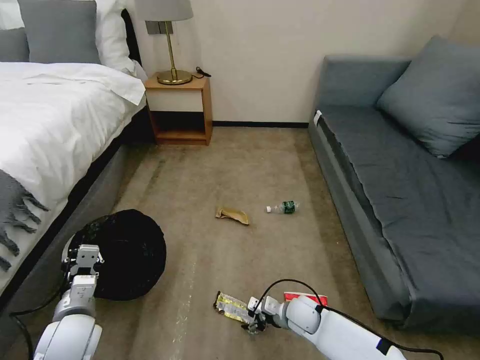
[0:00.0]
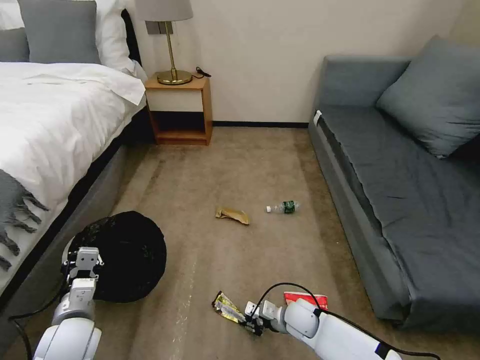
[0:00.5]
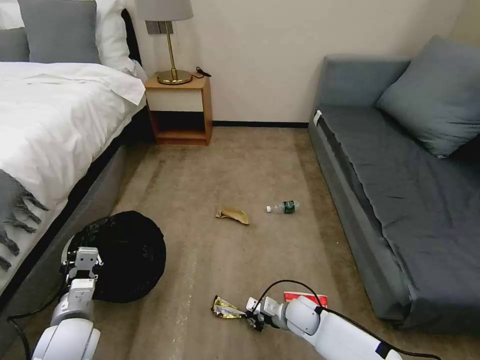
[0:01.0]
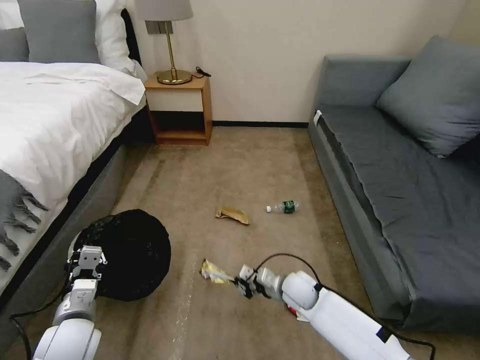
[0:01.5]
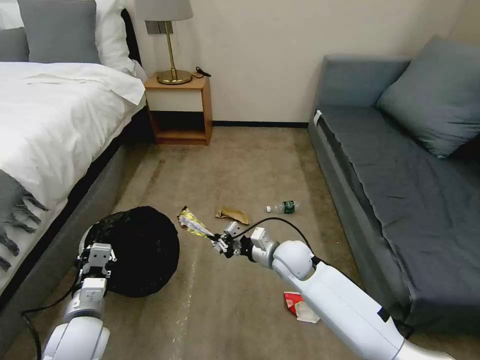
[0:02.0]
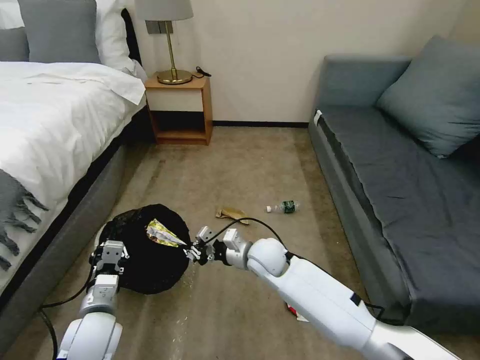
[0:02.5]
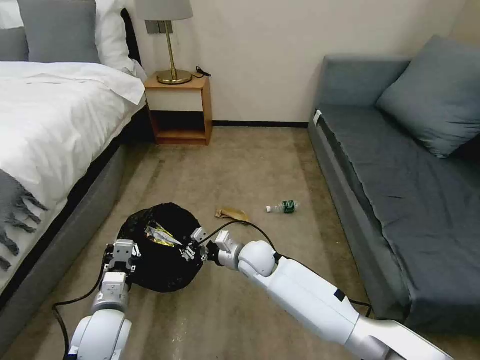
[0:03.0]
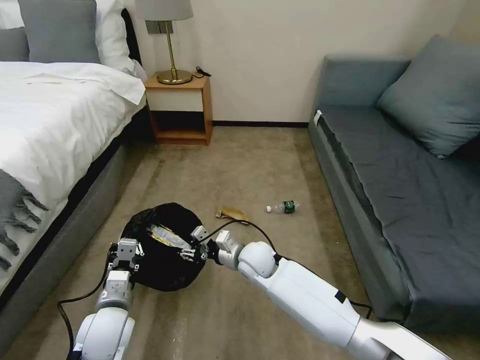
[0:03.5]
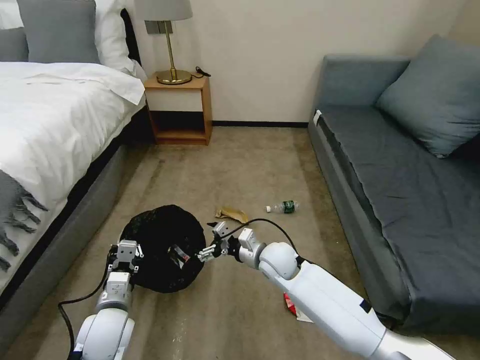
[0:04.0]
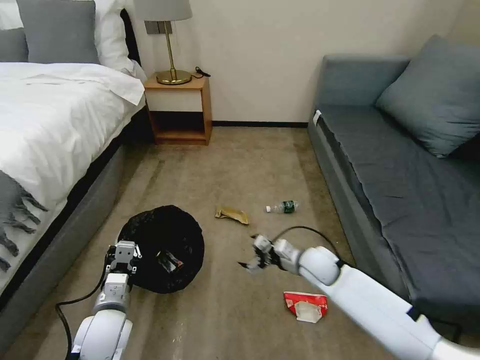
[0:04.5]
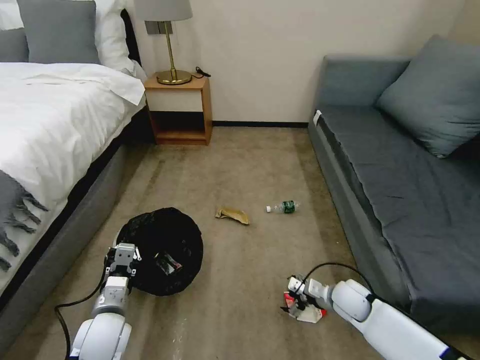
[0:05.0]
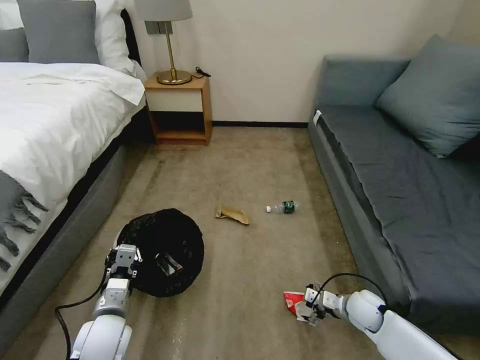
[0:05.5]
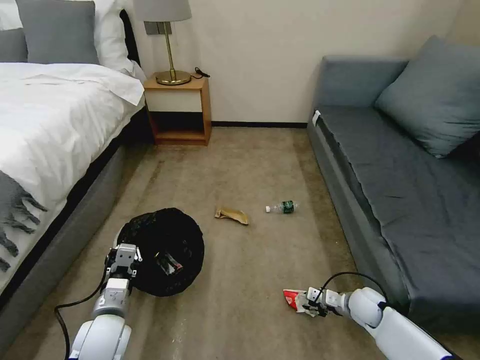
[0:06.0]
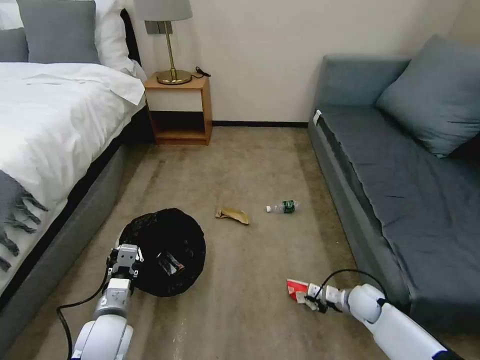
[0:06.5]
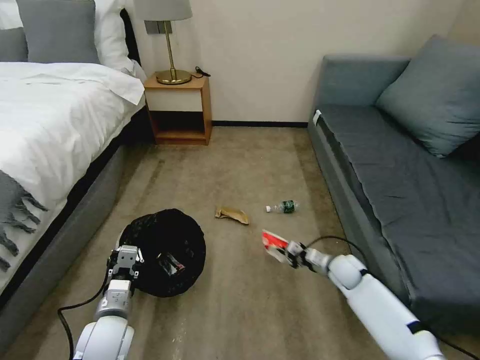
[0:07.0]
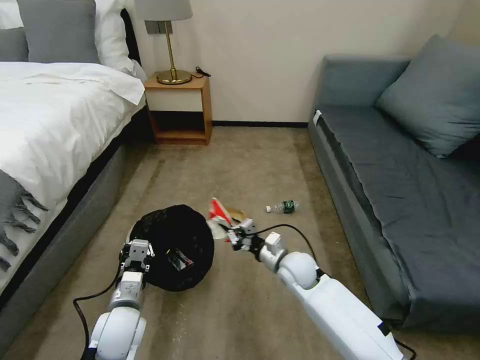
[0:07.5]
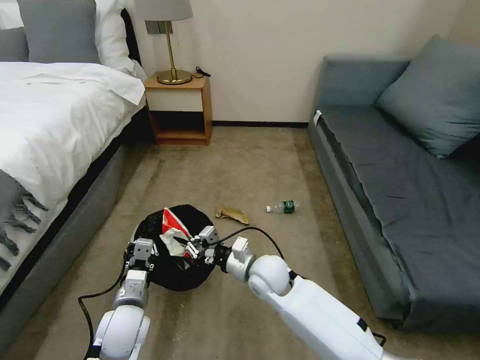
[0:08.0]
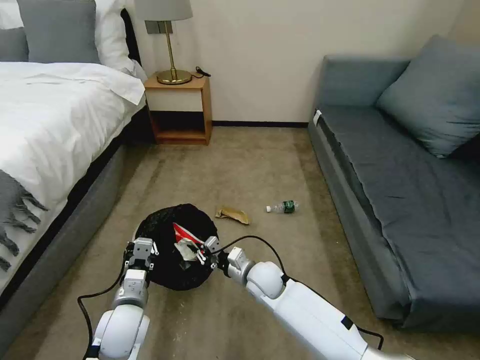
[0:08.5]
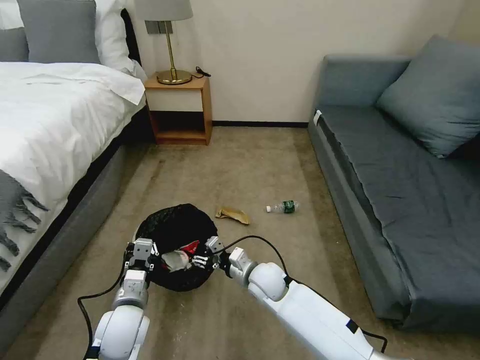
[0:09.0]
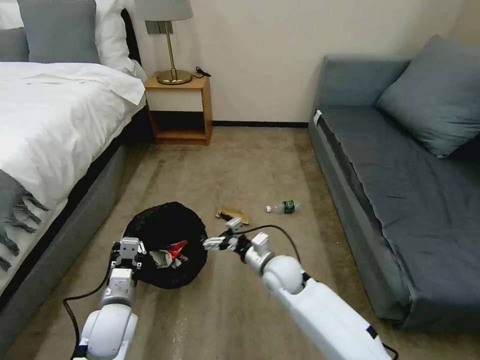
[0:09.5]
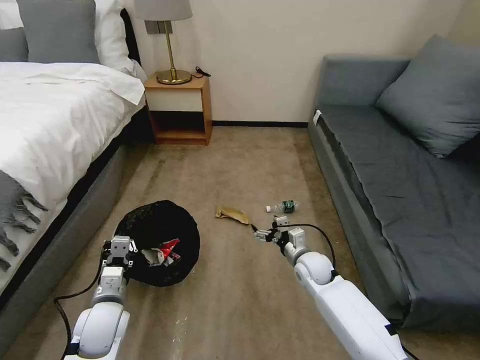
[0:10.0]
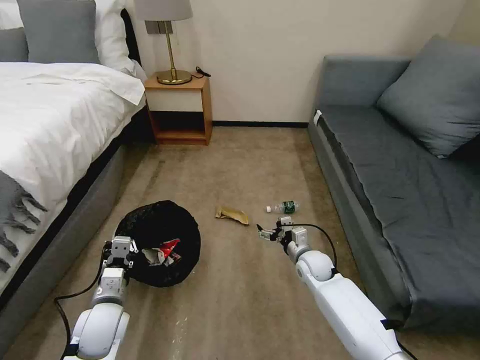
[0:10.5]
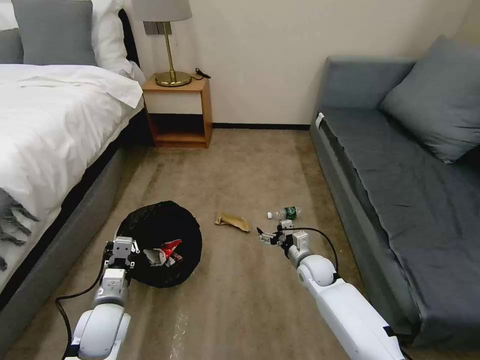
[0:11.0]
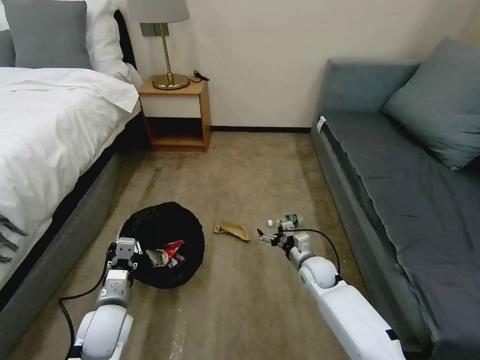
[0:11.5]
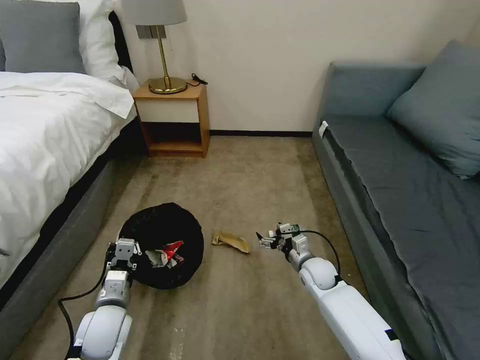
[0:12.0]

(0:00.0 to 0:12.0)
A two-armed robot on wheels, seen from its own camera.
Task of the whole recording: Pick up the trash bin, then pick up the garbage on the floor and place it into the trash bin.
0:00.0 - 0:02.0: The right gripper is displaced upward and forward by approximately 20 cm, and closes its fingers.
0:02.0 - 0:04.0: The right gripper opens.
0:04.0 - 0:06.0: The right gripper heads to the right and downward, covering about 30 cm, and closes its fingers.
0:06.0 - 0:08.0: The right gripper goes roughly 35 cm to the left and upward, and closes its fingers.
0:08.0 - 0:10.0: The right gripper heads to the right and downward, covering some 15 cm, and opens its fingers.

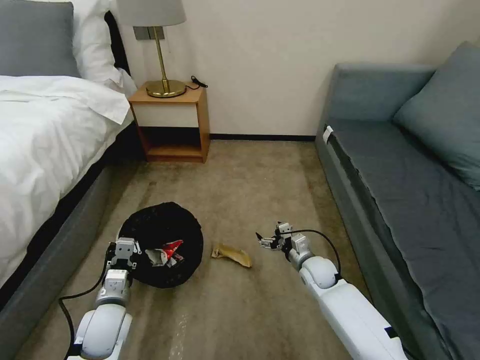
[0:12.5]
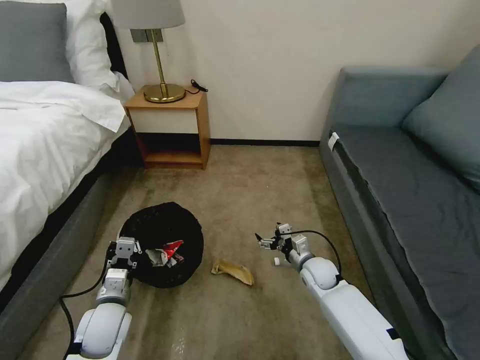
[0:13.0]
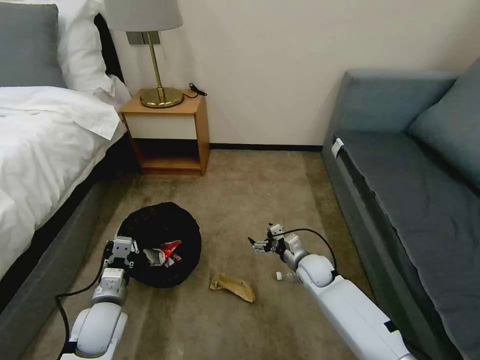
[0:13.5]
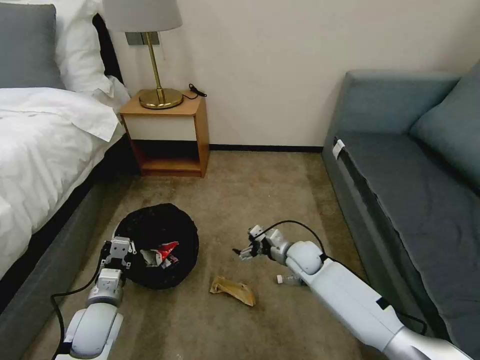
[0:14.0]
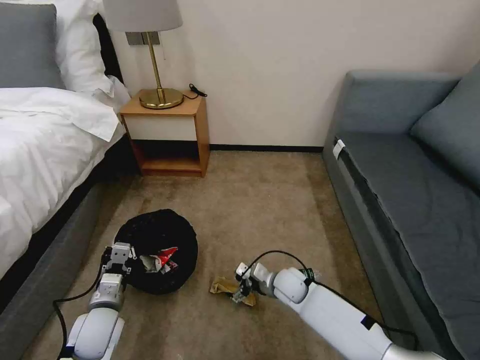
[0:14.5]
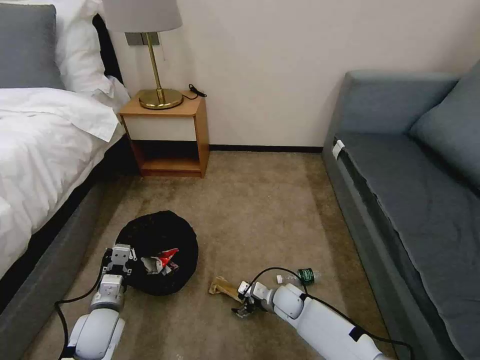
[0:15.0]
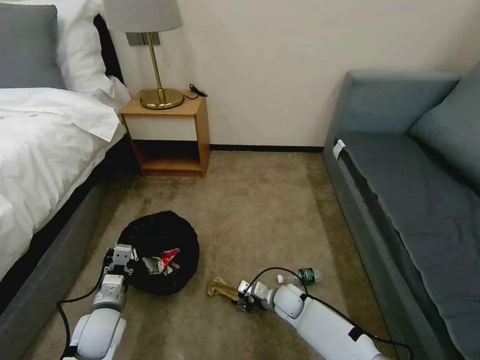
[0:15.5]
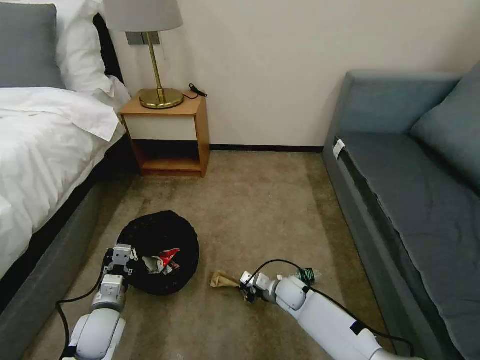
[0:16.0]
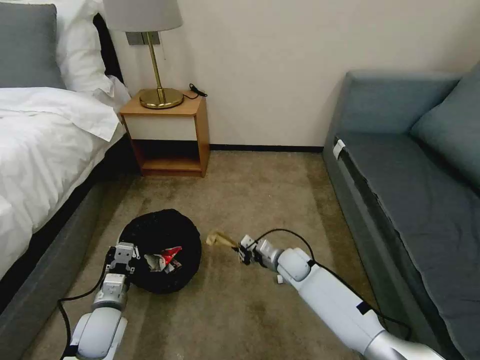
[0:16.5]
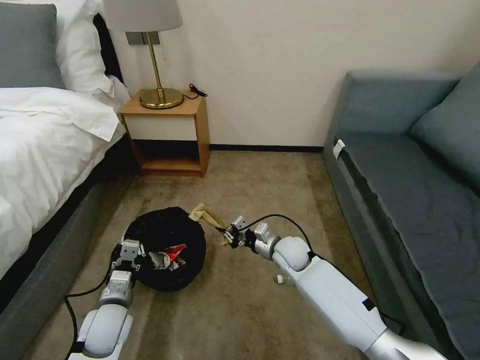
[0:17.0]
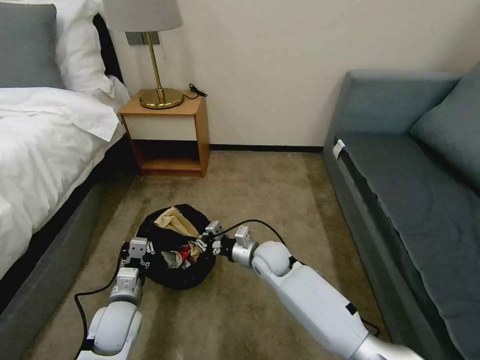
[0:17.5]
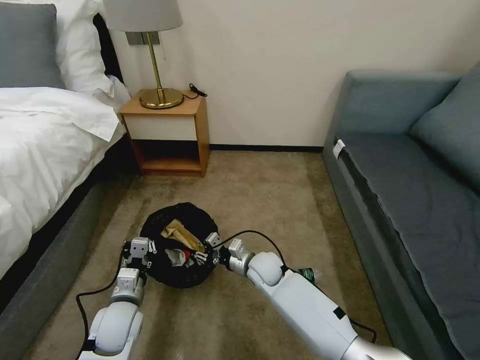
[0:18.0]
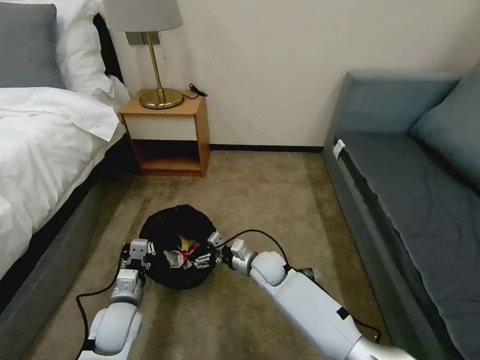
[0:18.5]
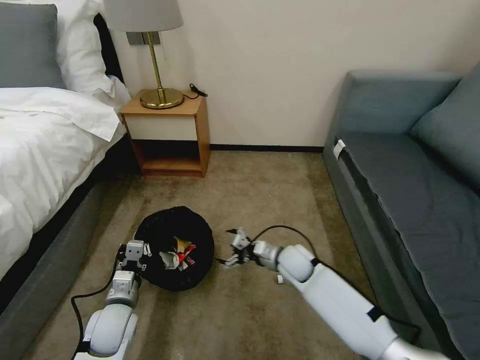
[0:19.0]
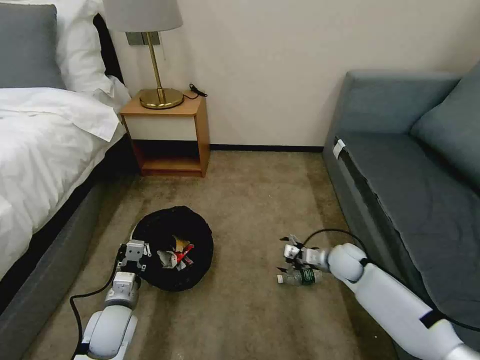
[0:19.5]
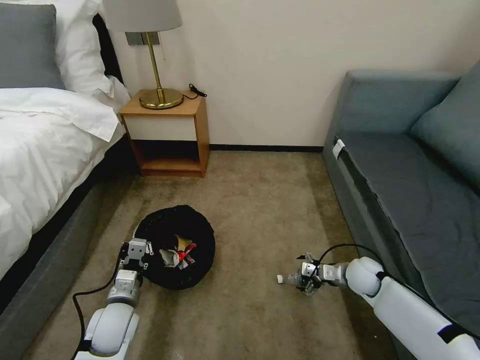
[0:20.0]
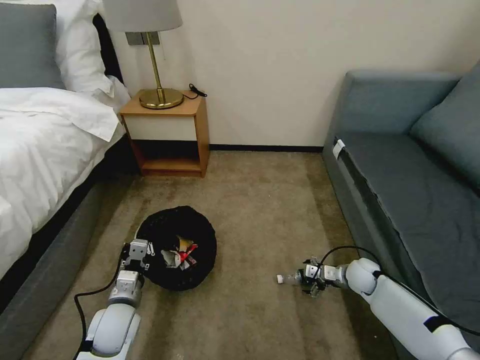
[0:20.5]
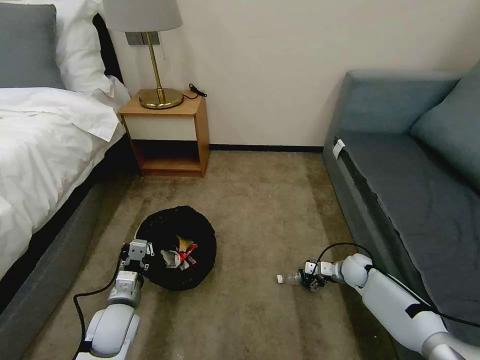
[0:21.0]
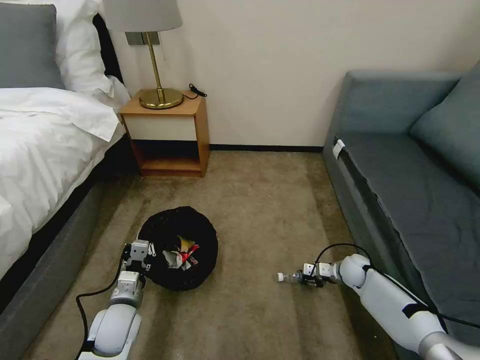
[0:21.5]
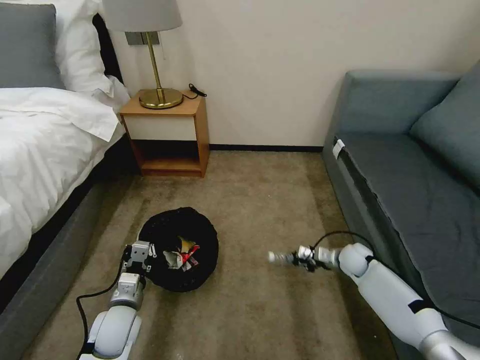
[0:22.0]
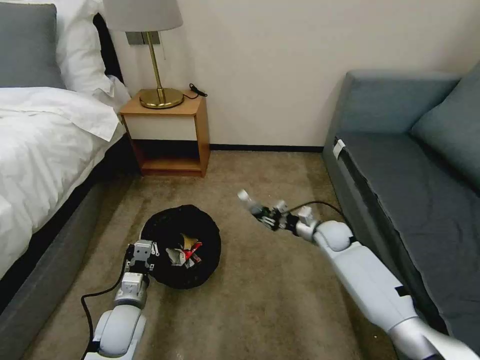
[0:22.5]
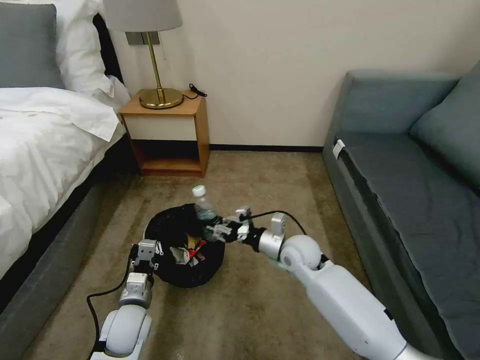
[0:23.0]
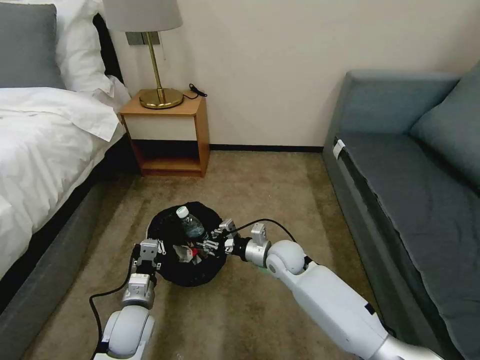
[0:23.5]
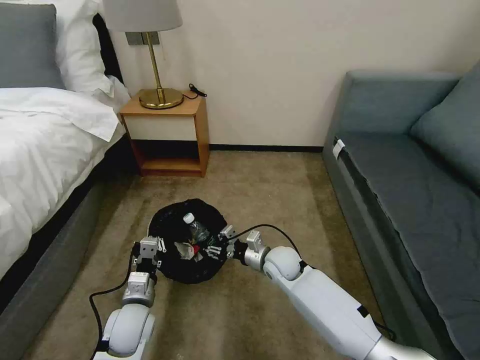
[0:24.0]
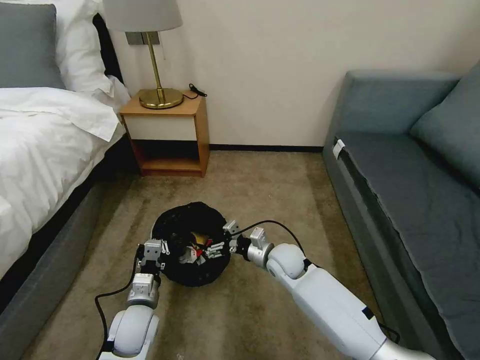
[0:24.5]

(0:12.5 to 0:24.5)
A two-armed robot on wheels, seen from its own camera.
Task of the whole recording: Pick up the trash bin, then pick up the garbage on the floor and place it into the trash bin.
0:12.5 - 0:14.5: The right gripper shifts roughly 10 cm to the left.
0:14.5 - 0:16.5: The right gripper goes downward and returns, approximately 5 cm each way, and closes.
0:16.5 - 0:18.5: The right gripper travels to the left by roughly 10 cm, and opens up.
0:18.5 - 0:20.5: The right gripper is displaced to the right by roughly 30 cm.
0:20.5 - 0:22.5: The right gripper goes approximately 15 cm to the left, upward and forward, and closes.
0:22.5 - 0:24.5: The right gripper goes some 15 cm to the left and backward, and opens.

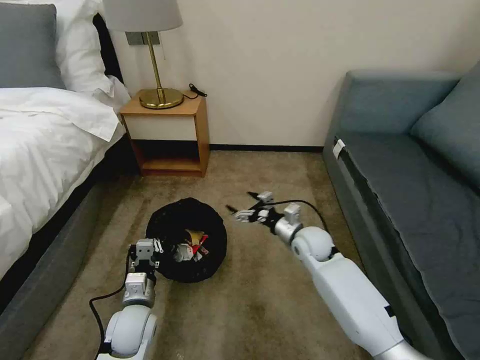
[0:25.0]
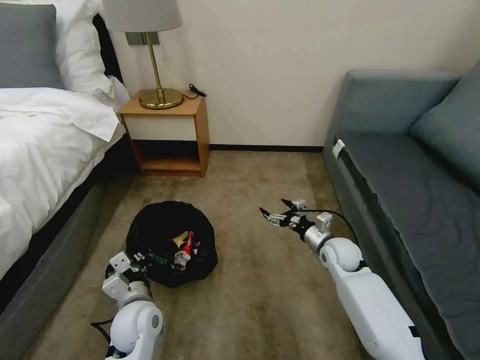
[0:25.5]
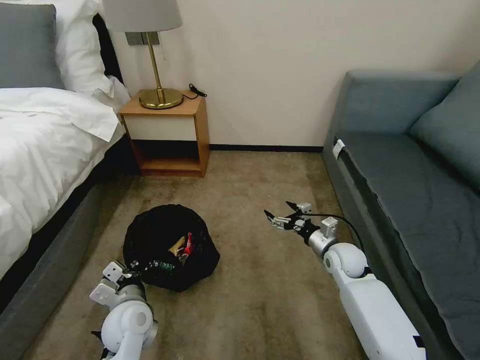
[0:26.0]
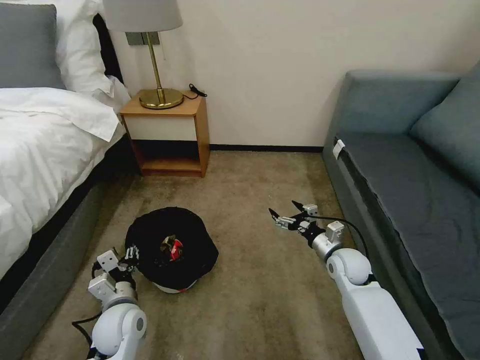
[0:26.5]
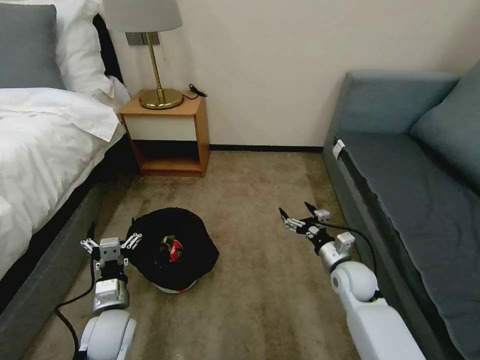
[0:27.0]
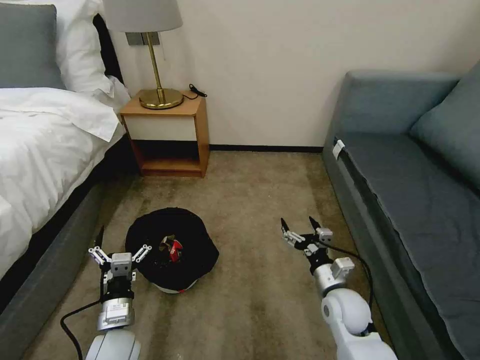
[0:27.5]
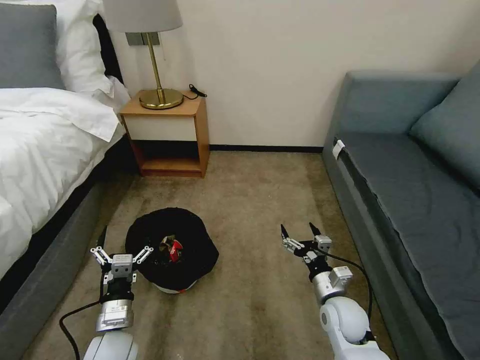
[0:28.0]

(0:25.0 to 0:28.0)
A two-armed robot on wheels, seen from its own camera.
Task of the whole recording: Pick up the trash bin, then pick up the garbage on the floor and place it into the trash bin.
0:25.0 - 0:26.5: The right gripper shifts approximately 10 cm to the right. Meanwhile the left gripper opens.
0:26.5 - 0:28.0: The left gripper changes place by roughly 5 cm, and opens its fingers, while the right gripper shifts roughly 10 cm backward.
